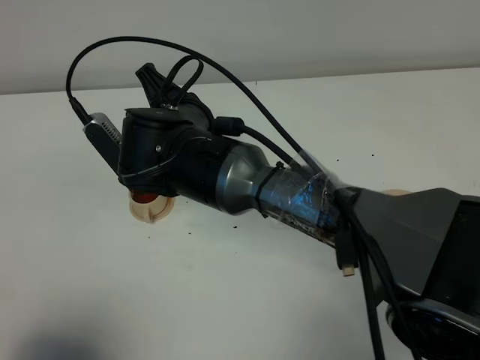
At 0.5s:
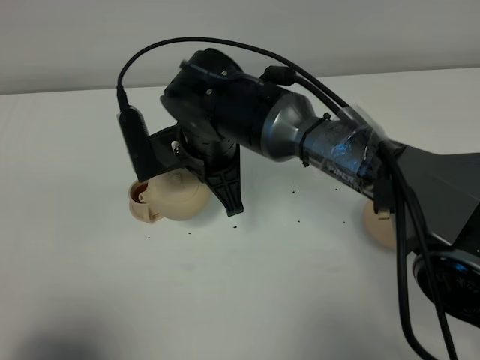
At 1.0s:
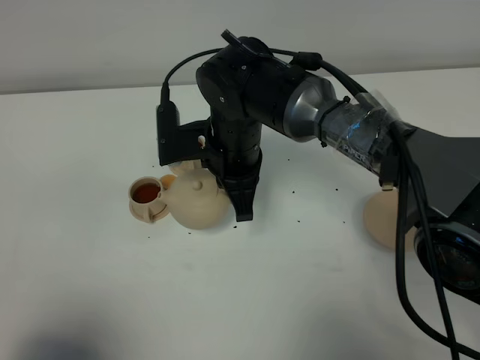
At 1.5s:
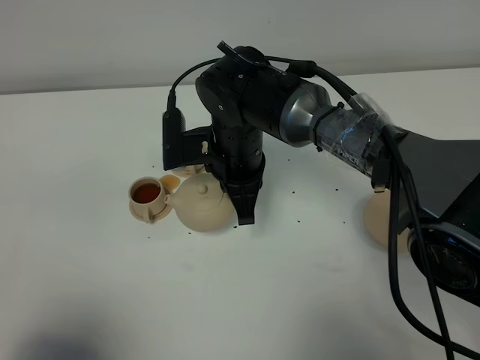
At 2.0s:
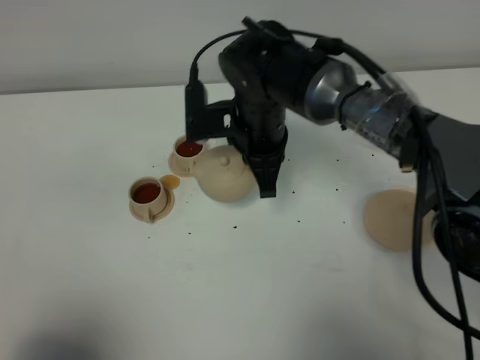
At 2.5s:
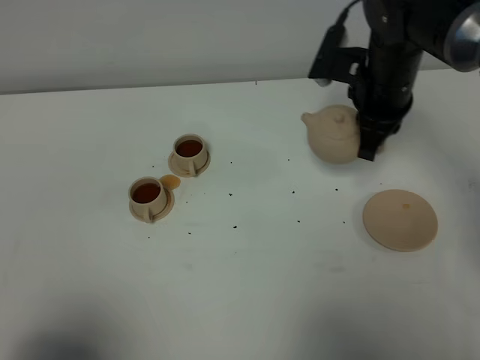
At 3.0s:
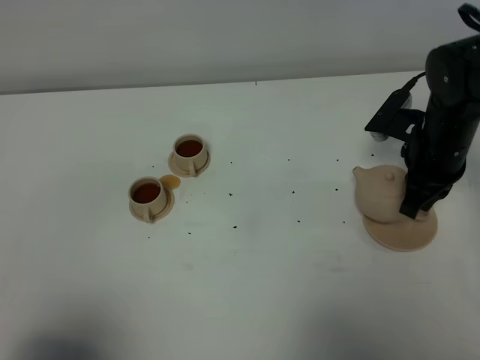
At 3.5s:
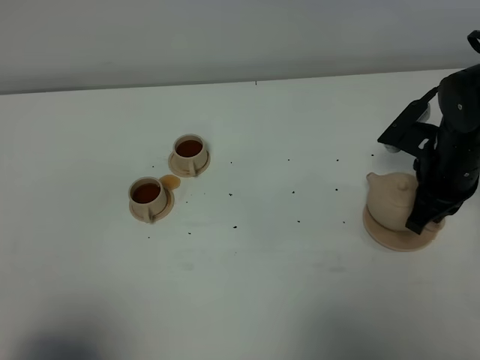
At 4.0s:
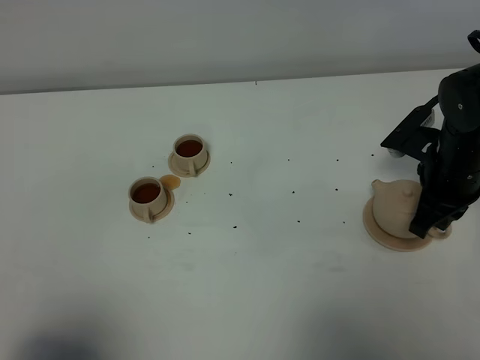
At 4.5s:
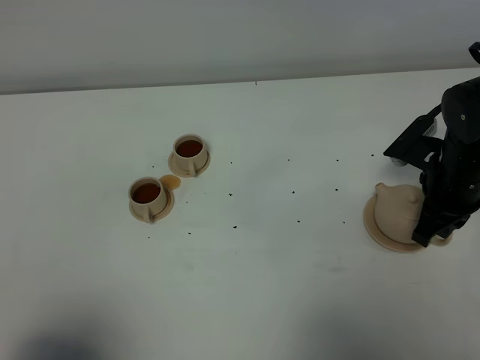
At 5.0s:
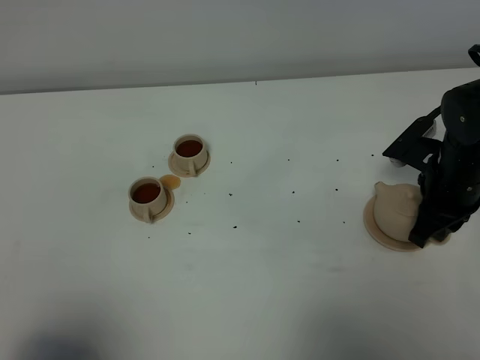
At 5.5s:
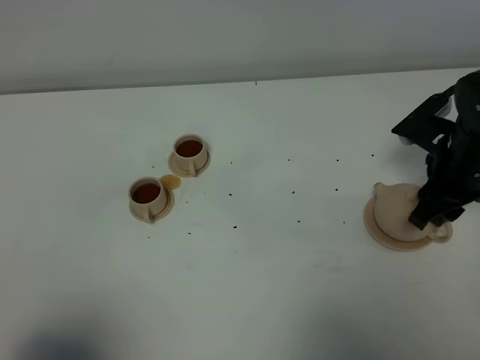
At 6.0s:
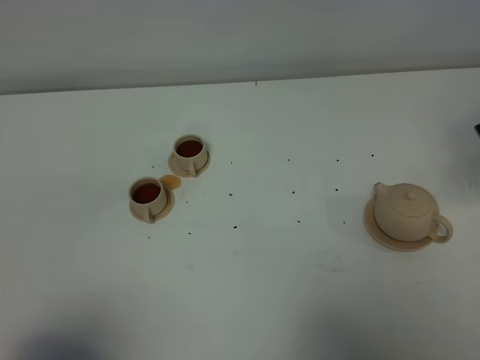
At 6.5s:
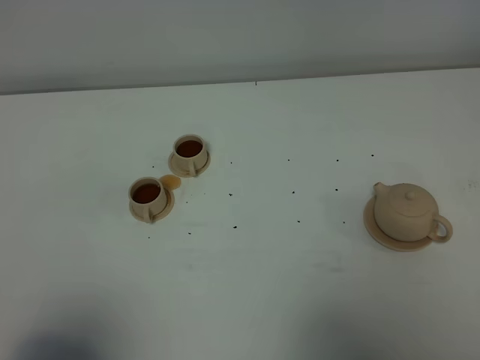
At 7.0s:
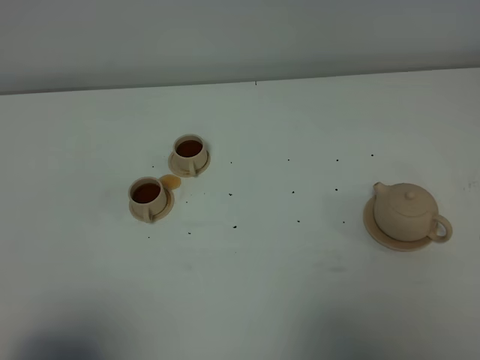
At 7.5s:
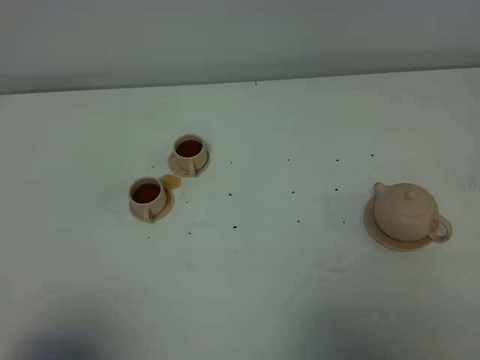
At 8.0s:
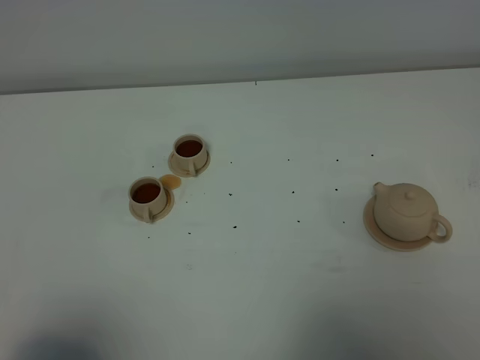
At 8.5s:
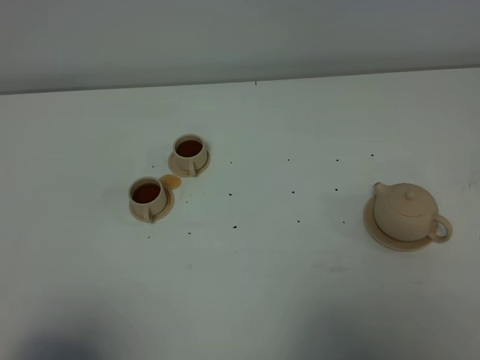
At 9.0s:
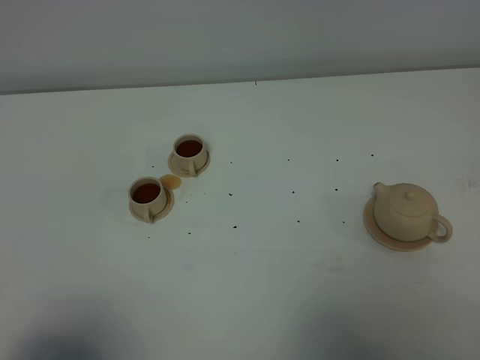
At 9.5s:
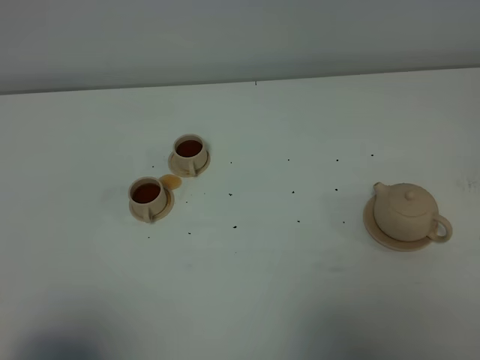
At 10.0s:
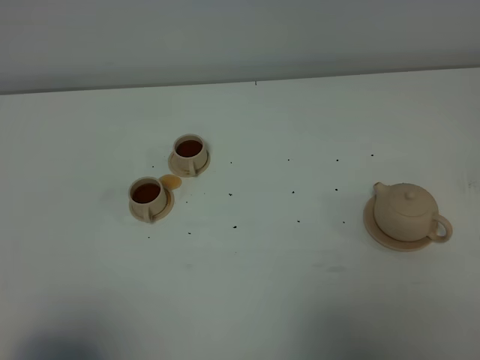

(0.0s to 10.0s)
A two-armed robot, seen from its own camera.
Task of the whole recording: grasp the brown teapot and pour the tea into the two brown teacups one by one, put the brown teapot back in its original place.
0.0s - 2.0s: The right gripper travels to the right and forward by approximately 10 cm.
2.0s - 4.0s: The right gripper moves to the right, some 20 cm.
4.0s - 6.0s: The right gripper travels upward and backward by about 25 cm.
